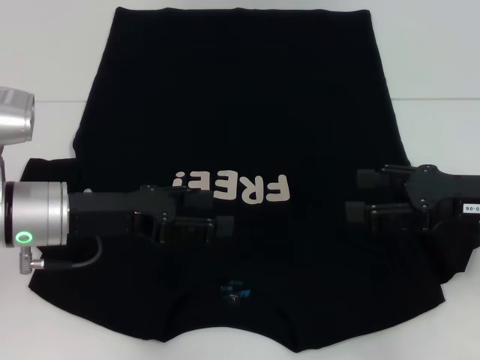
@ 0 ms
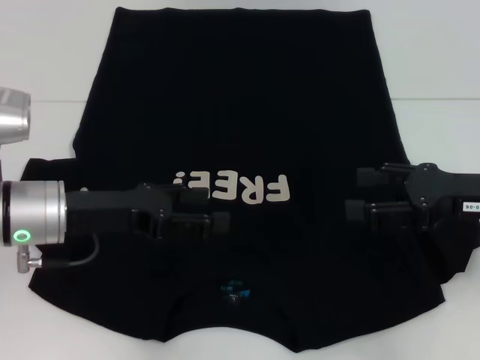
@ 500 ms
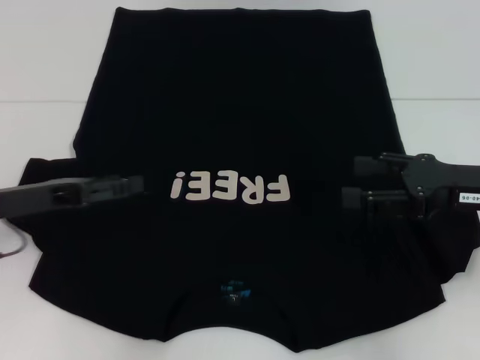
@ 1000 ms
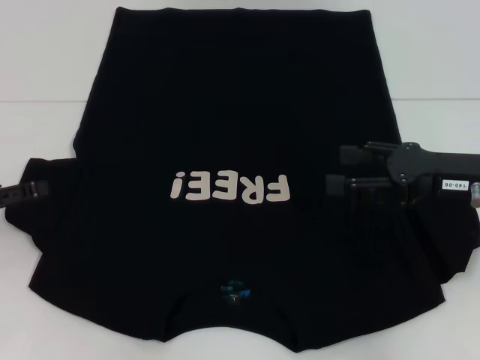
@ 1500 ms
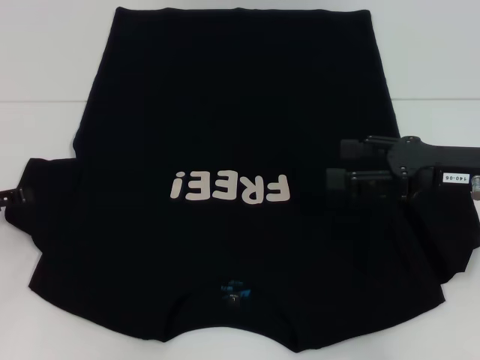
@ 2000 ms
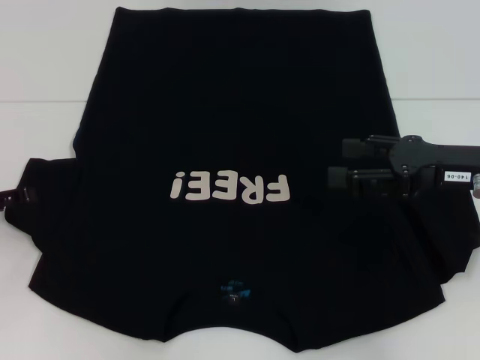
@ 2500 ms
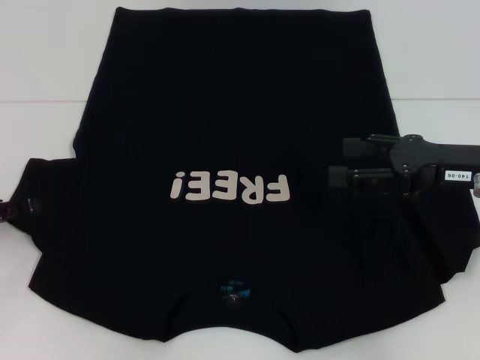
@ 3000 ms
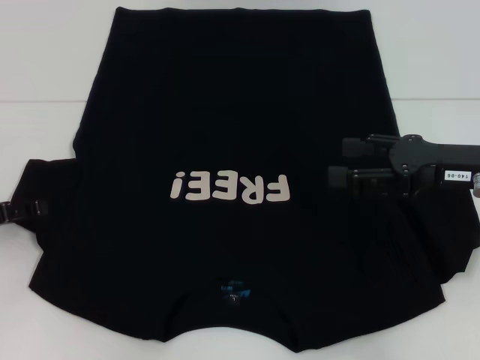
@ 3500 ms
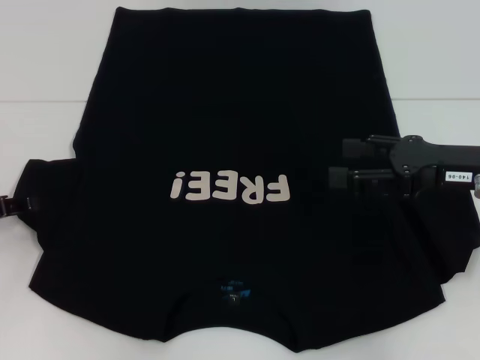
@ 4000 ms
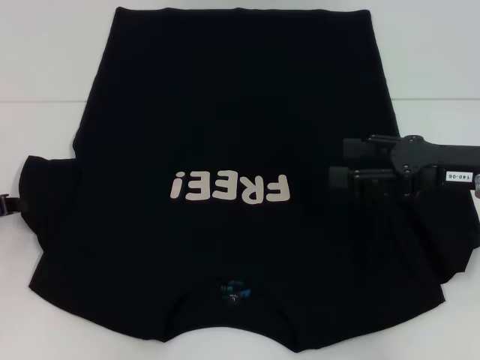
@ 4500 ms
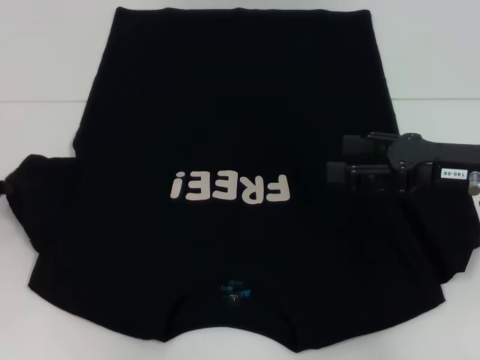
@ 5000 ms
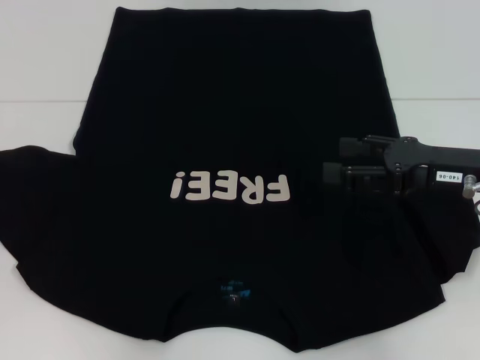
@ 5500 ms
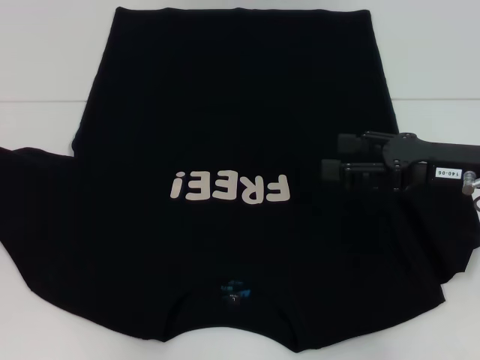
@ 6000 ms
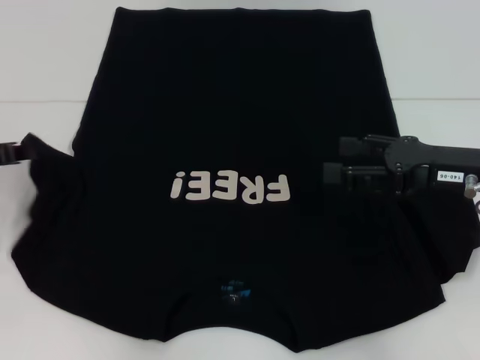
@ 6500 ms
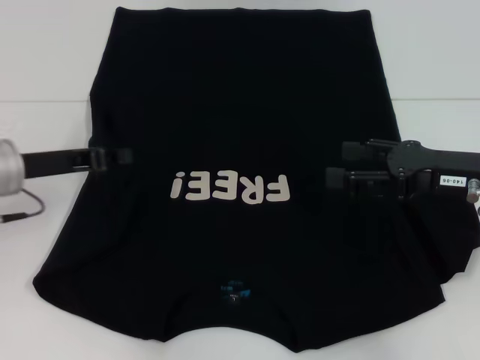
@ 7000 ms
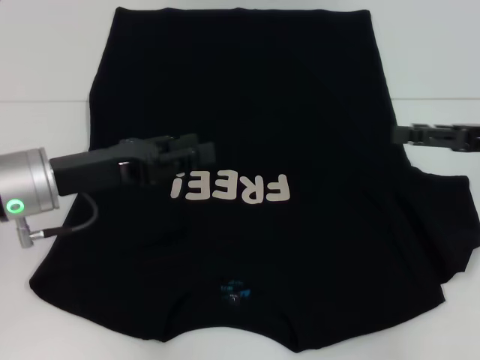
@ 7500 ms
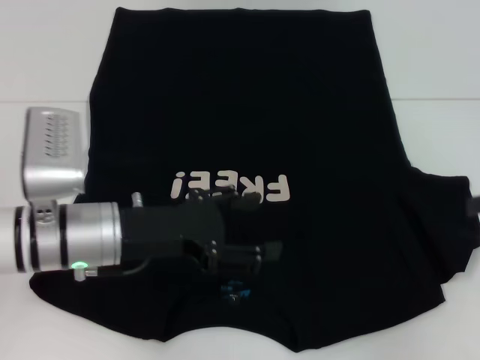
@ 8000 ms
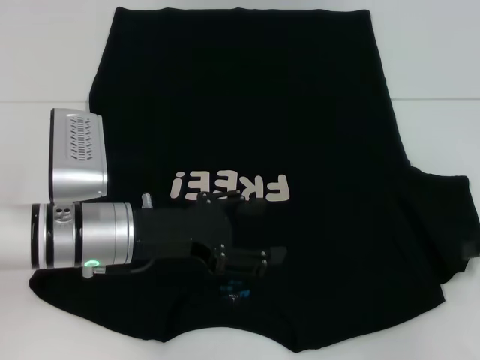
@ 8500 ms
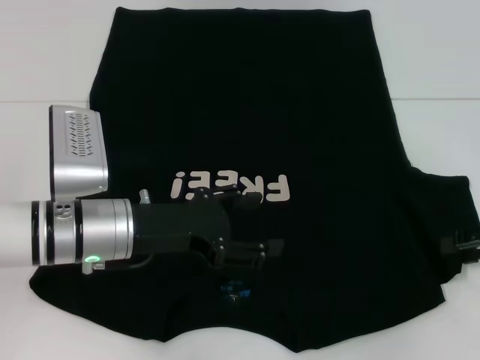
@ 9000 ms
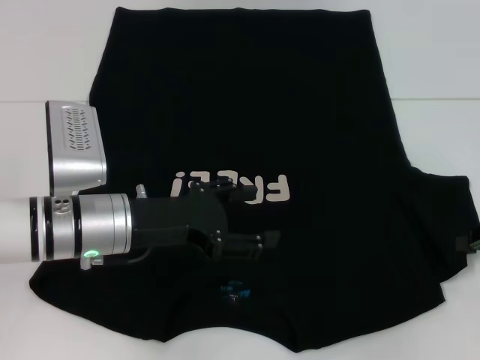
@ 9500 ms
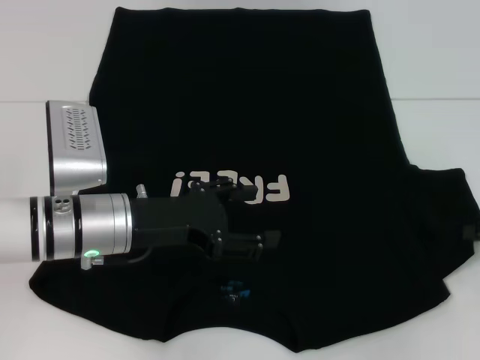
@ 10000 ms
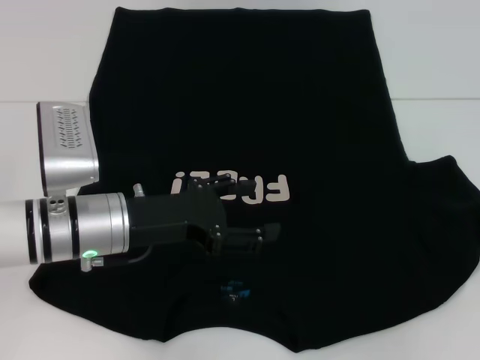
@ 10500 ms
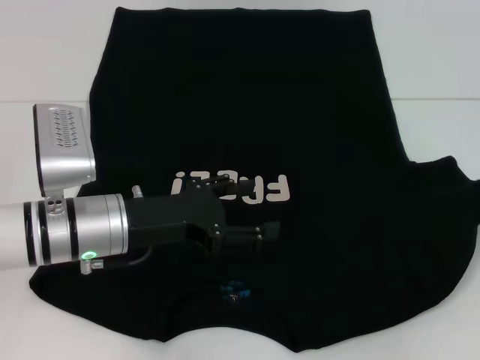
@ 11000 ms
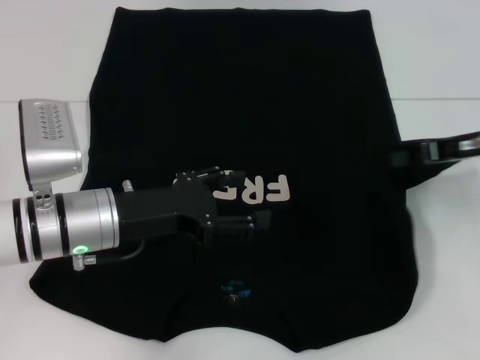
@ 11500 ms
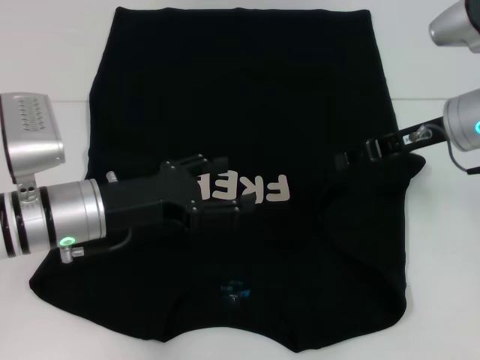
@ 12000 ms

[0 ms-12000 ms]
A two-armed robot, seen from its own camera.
Step, 0 ms to 7500 ms: Fold the bottom left sleeve with your left hand.
0 ms to 2000 ms: The left gripper moves to the left, about 15 cm.
2000 ms to 4000 ms: The grippers stay close to where they were, moving slightly.
4000 ms to 6000 ms: The left gripper shifts by about 5 cm, and closes up.
6000 ms to 8000 ms: The left gripper goes some 20 cm to the right, and opens up, while the right gripper goes roughly 15 cm to the right.
8000 ms to 10000 ms: The right gripper shifts about 5 cm downward, and closes.
10000 ms to 12000 ms: The right gripper shifts some 15 cm to the left, forward and upward.

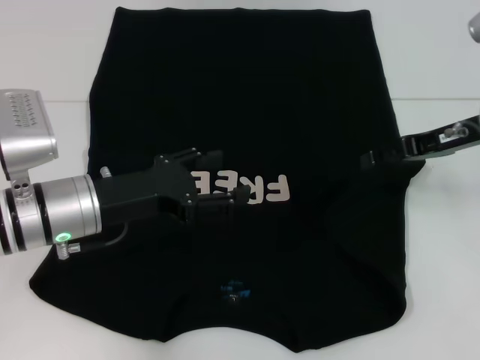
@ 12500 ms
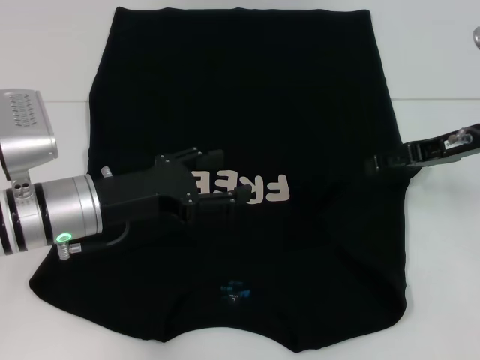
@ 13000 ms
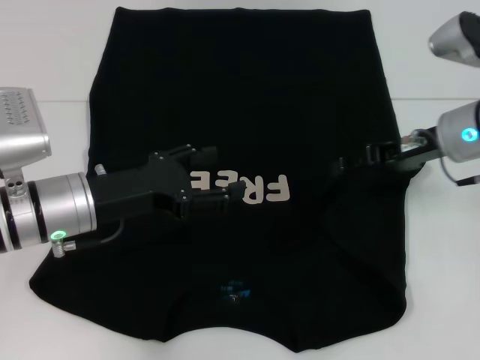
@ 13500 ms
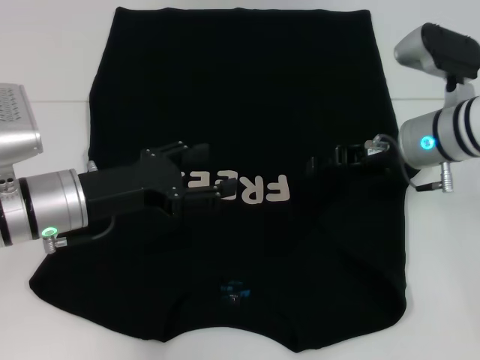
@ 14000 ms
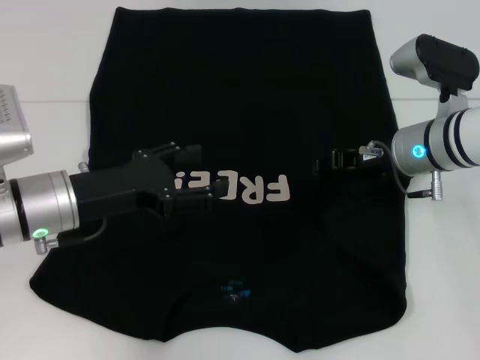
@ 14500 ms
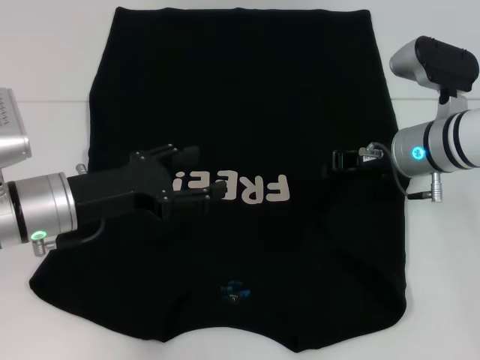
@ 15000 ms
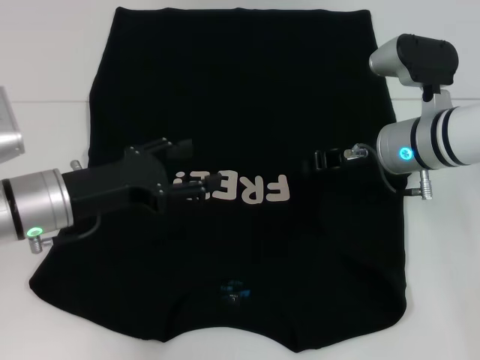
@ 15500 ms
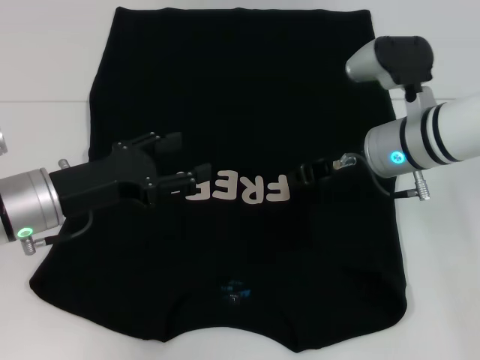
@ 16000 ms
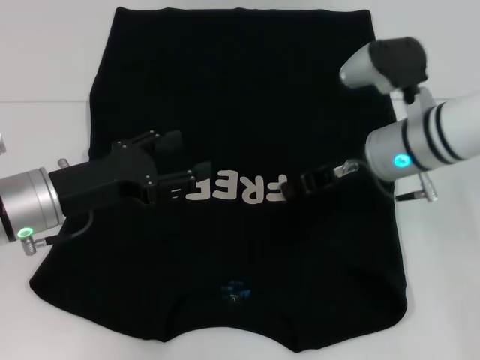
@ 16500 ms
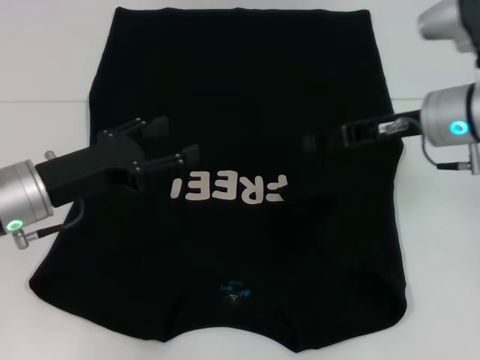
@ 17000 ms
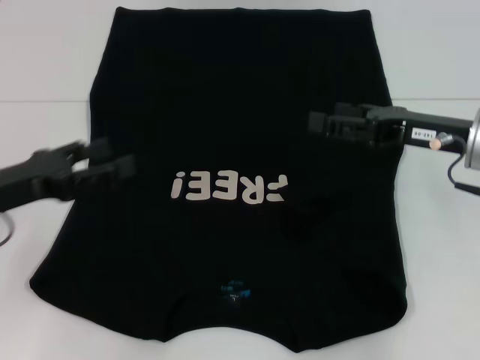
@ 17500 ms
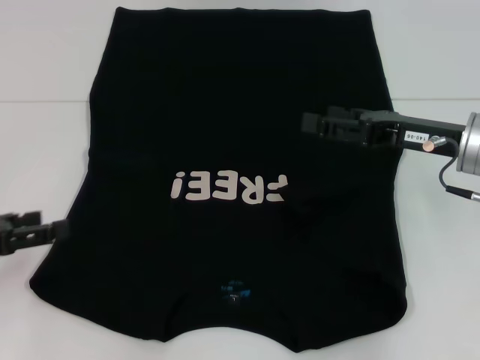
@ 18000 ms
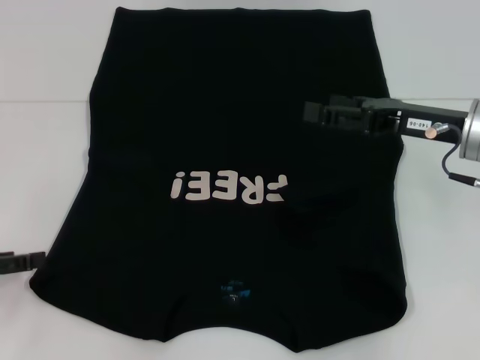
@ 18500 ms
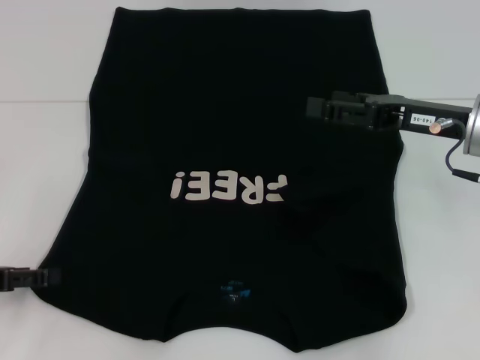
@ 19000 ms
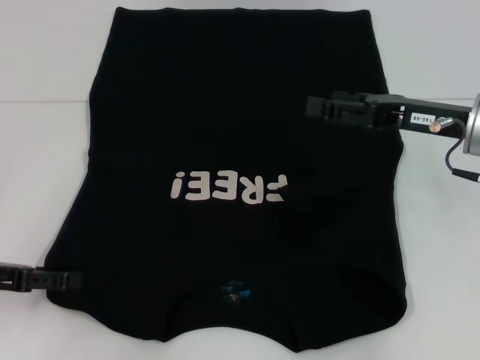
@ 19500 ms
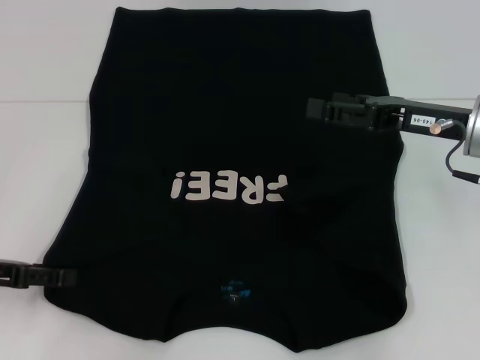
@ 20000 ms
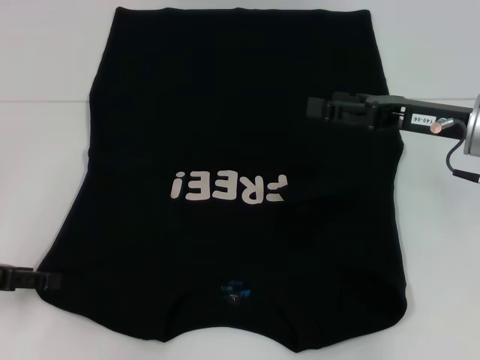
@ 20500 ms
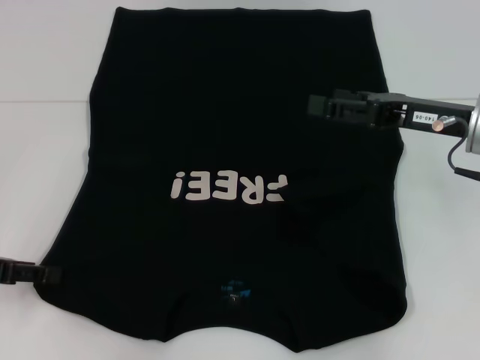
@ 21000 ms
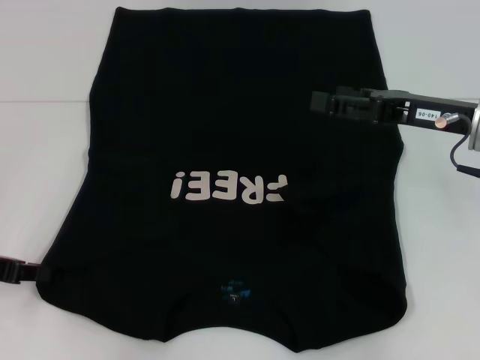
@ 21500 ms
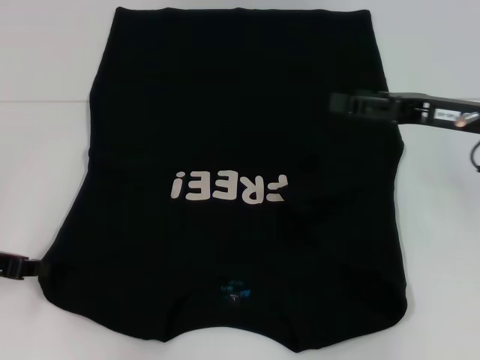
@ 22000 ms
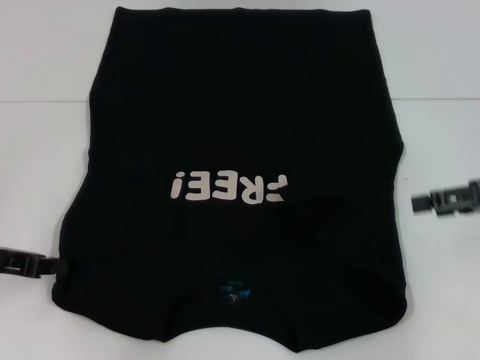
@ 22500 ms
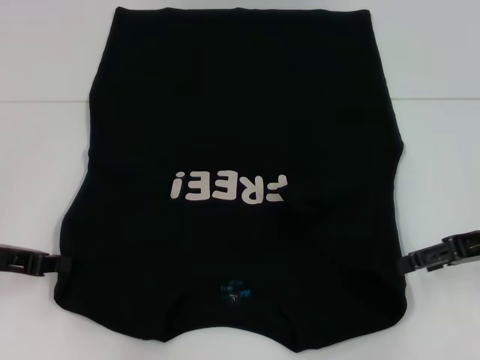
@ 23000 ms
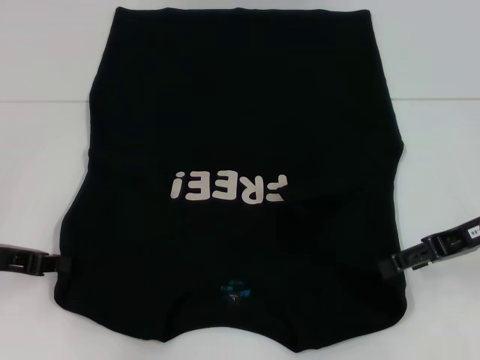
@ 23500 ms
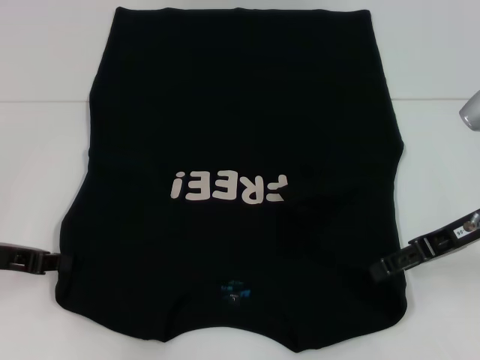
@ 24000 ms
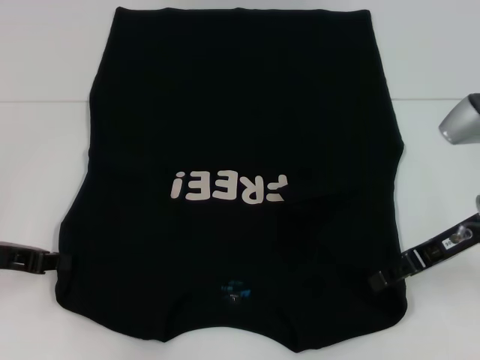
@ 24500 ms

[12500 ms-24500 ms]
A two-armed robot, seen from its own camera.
Step, 12500 ms to 16000 ms: Fold the bottom right sleeve with your right hand.
12500 ms to 14500 ms: The right gripper shifts roughly 10 cm to the left and downward.
14500 ms to 16500 ms: The right gripper closes its fingers.
16500 ms to 18500 ms: The right gripper goes about 10 cm to the right, and opens up, while the left gripper is displaced to the left and backward by approximately 15 cm.
18500 ms to 20500 ms: There are only small adjustments of the grippers.
20500 ms to 22500 ms: The right gripper travels to the right by roughly 10 cm. The left gripper closes its fingers.
22500 ms to 24500 ms: The right gripper goes roughly 10 cm to the left.

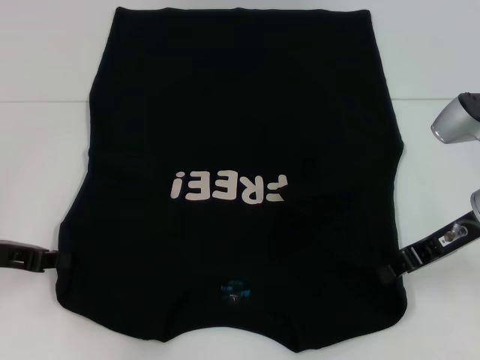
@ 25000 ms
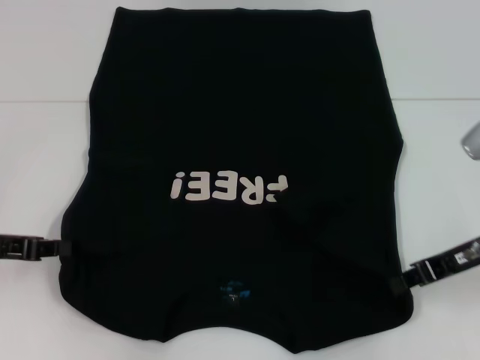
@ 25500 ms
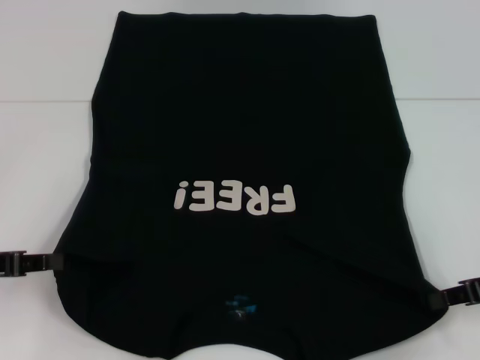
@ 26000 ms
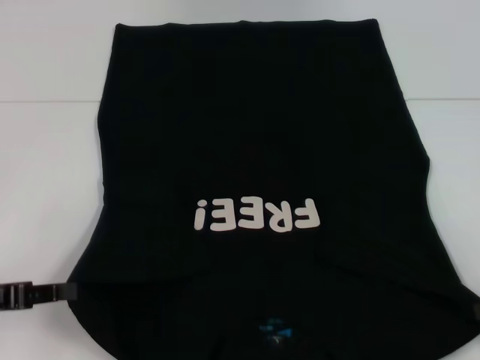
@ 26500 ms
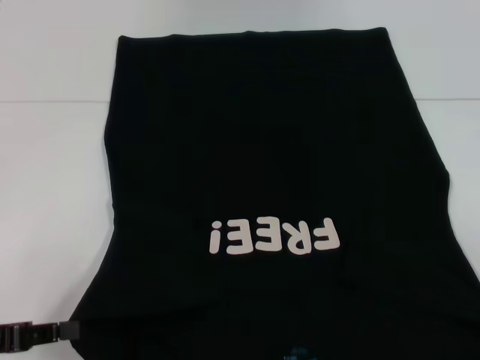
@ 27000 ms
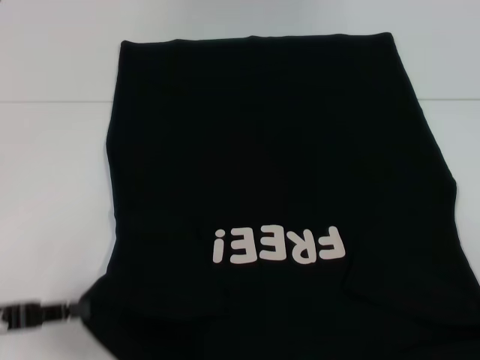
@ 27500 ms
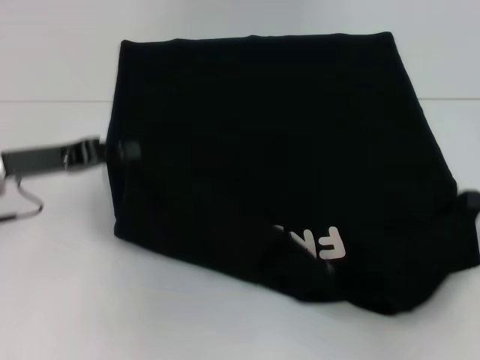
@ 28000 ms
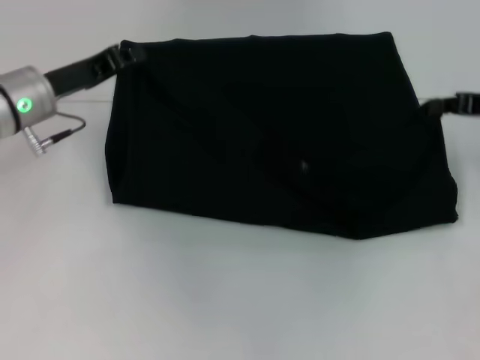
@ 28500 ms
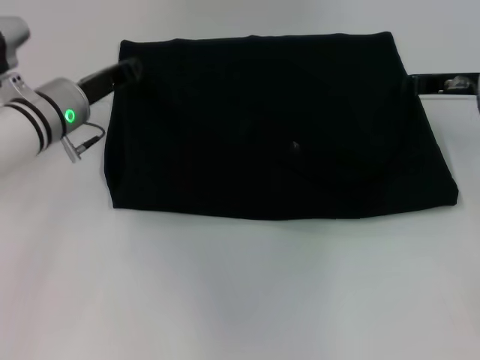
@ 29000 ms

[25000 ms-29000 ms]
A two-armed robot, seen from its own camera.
25000 ms to 27000 ms: The right gripper shifts approximately 20 cm to the right and backward. The left gripper heads backward, covering about 10 cm.
27000 ms to 29000 ms: The right gripper moves forward and to the left, about 25 cm. The left gripper travels forward and to the right by roughly 25 cm.
